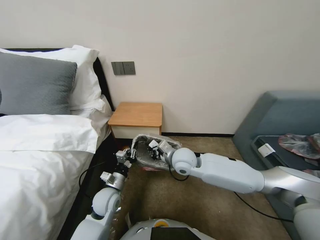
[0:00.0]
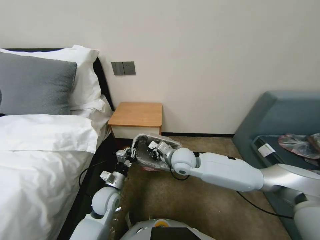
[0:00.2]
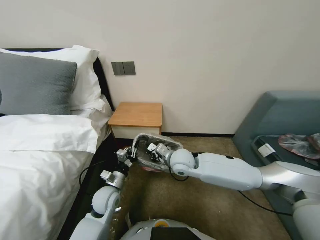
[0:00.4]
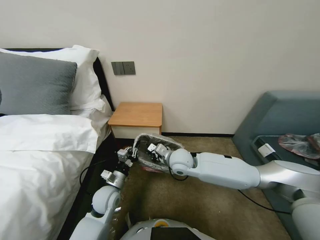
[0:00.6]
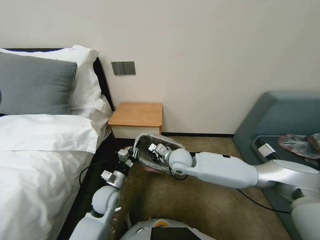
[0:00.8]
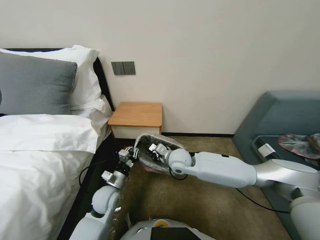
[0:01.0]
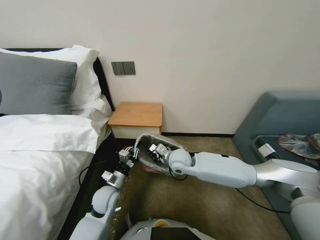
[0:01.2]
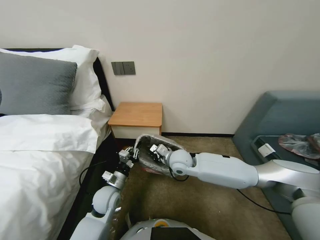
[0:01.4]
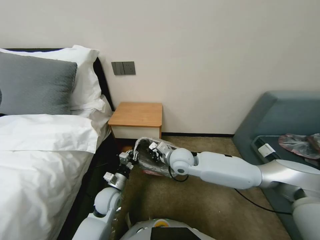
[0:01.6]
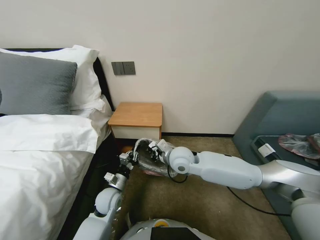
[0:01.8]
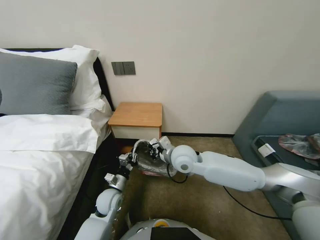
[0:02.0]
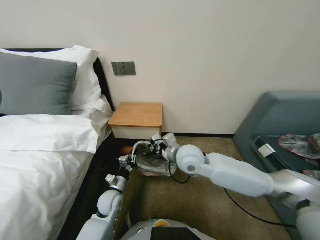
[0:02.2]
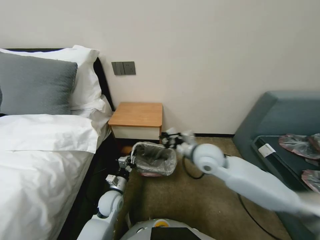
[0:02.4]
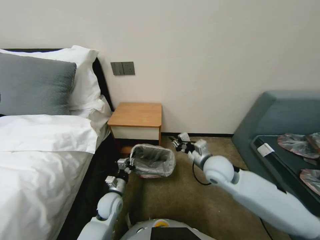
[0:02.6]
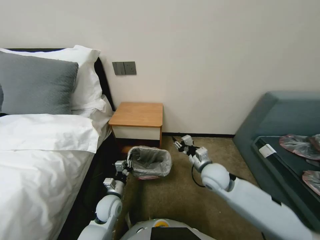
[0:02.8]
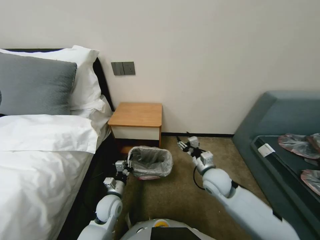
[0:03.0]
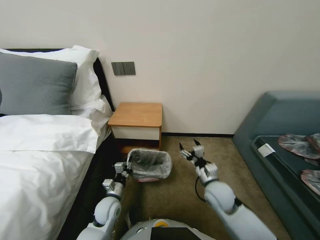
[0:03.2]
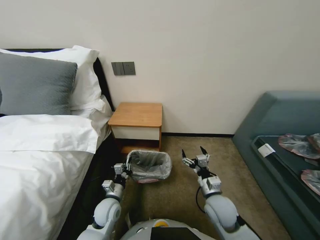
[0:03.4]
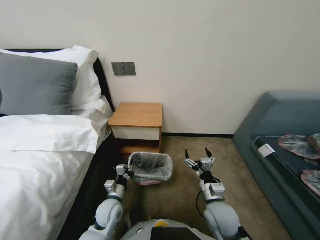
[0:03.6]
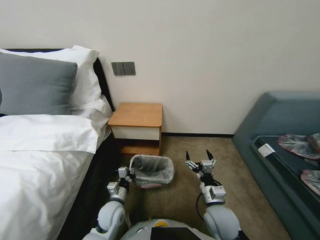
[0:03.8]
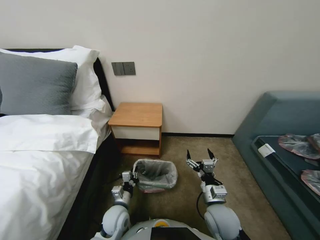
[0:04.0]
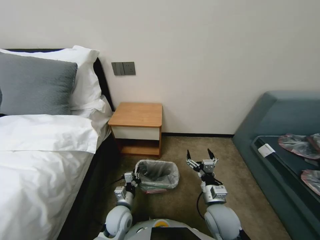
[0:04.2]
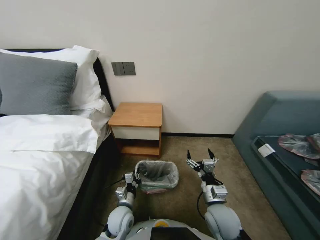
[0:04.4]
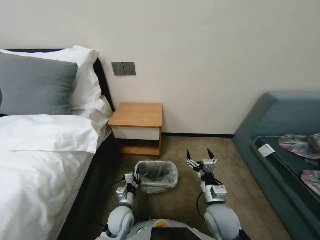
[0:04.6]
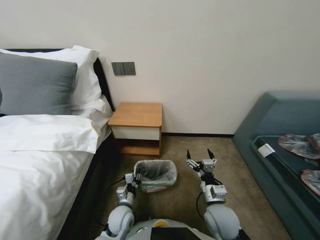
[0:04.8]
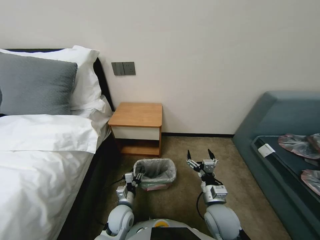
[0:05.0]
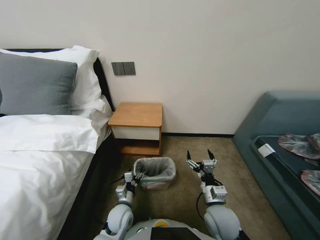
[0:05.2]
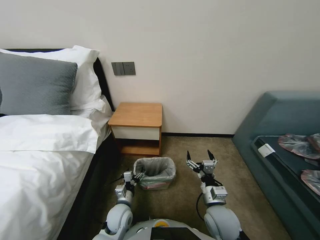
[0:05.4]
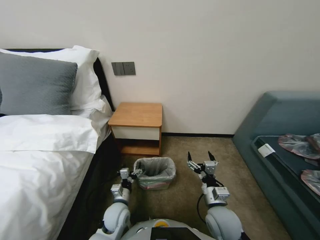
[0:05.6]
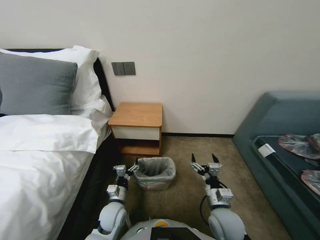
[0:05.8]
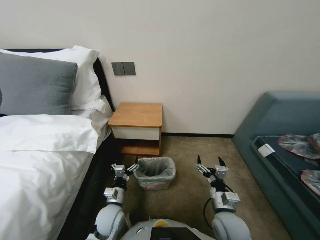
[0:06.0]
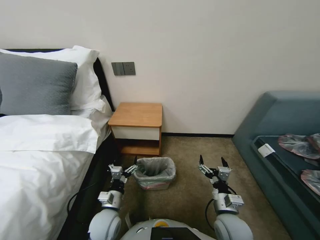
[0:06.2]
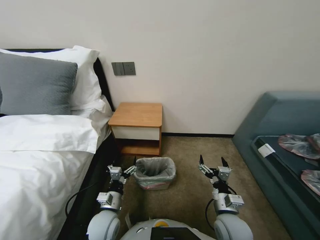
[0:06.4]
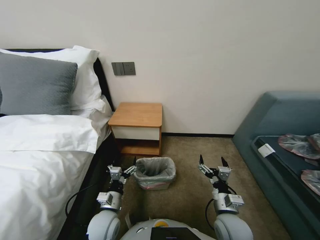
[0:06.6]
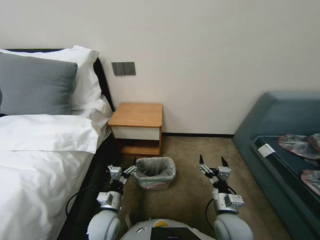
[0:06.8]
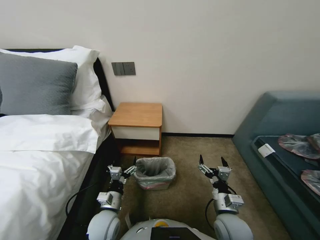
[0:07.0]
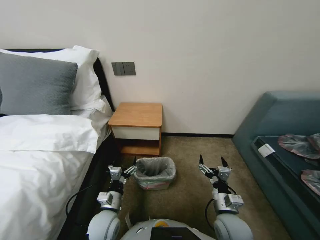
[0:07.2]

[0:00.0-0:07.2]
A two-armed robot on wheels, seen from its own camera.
Task of the whole recording: Pick up the garbage bag from the table and place it over the trash can.
0:00.0 to 0:01.4: The grippers stay close to where they were, moving slightly.
0:01.4 to 0:02.8: The right gripper heads to the right and backward, covering some 15 cm, and opens up. Meanwhile the left gripper is displaced downward by about 5 cm.
0:02.8 to 0:04.4: The right gripper moves backward and downward, roughly 15 cm, and opens its fingers, while the left gripper shifts roughly 5 cm to the right.
0:04.4 to 0:05.8: The left gripper opens its fingers.
0:05.8 to 0:07.2: The left gripper goes some 5 cm upward.

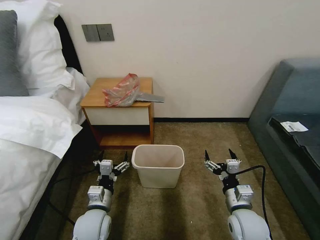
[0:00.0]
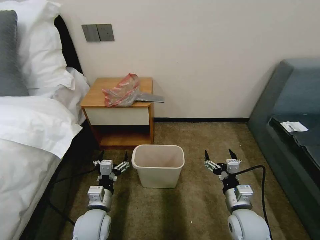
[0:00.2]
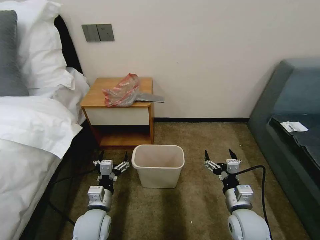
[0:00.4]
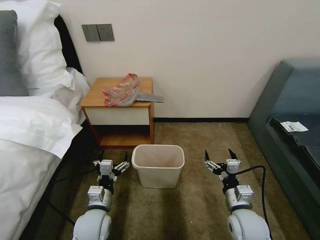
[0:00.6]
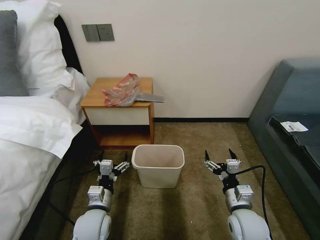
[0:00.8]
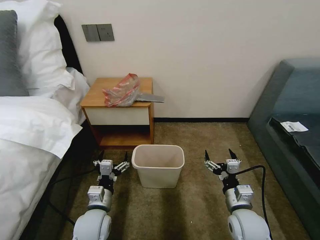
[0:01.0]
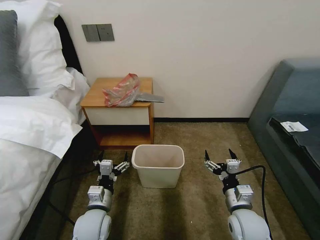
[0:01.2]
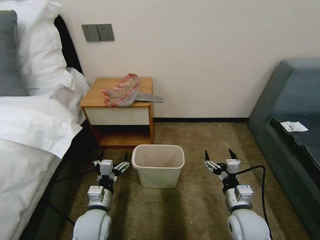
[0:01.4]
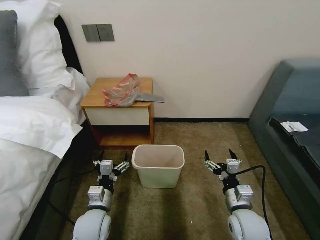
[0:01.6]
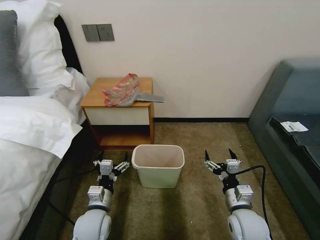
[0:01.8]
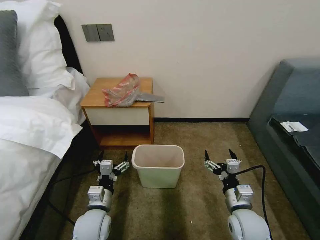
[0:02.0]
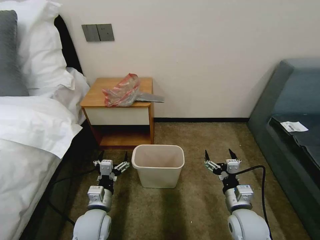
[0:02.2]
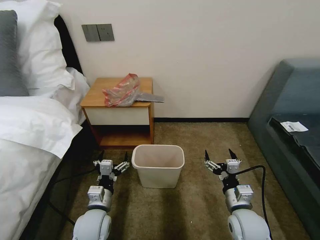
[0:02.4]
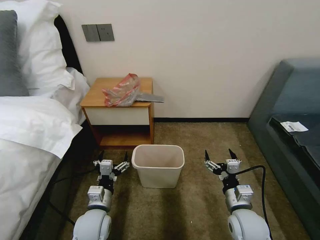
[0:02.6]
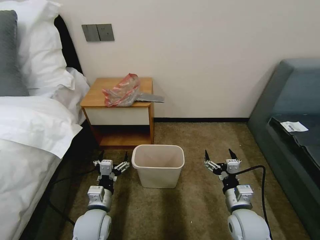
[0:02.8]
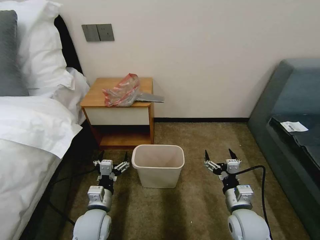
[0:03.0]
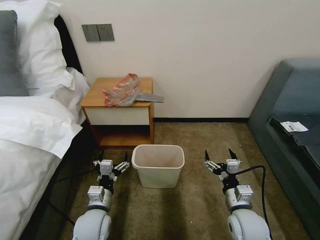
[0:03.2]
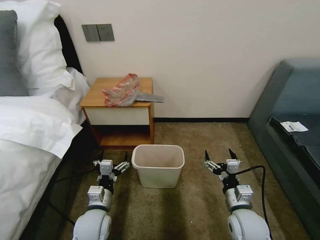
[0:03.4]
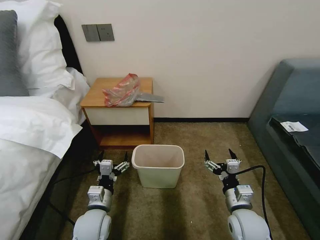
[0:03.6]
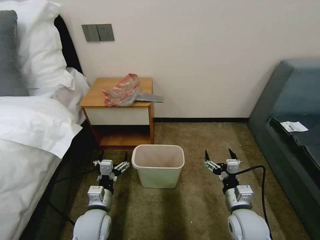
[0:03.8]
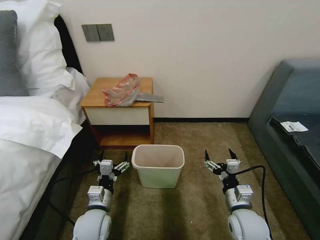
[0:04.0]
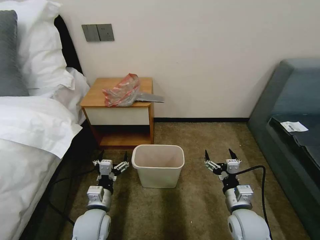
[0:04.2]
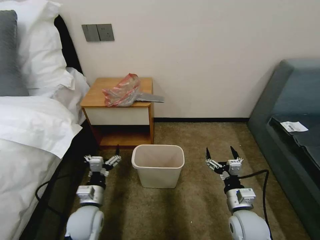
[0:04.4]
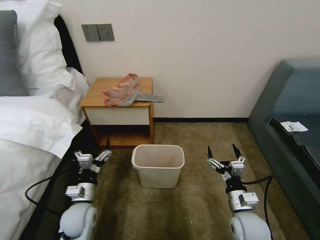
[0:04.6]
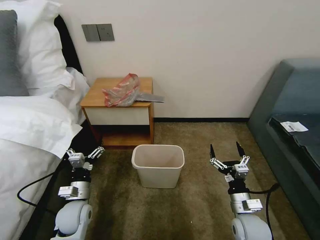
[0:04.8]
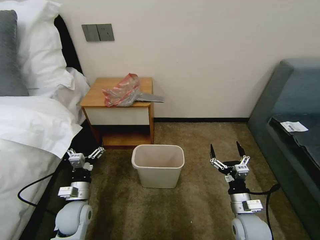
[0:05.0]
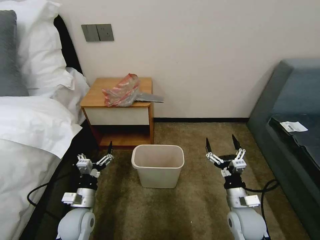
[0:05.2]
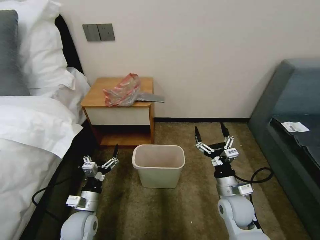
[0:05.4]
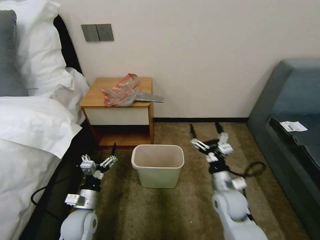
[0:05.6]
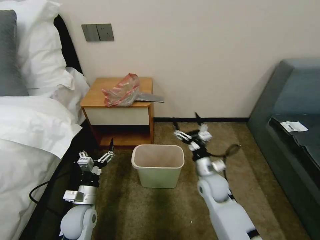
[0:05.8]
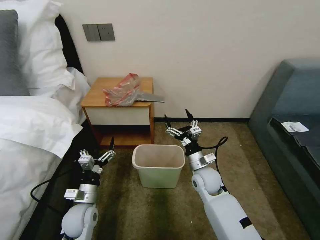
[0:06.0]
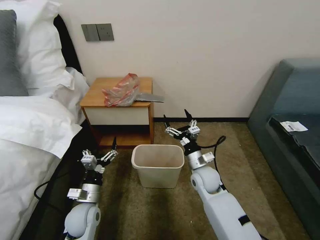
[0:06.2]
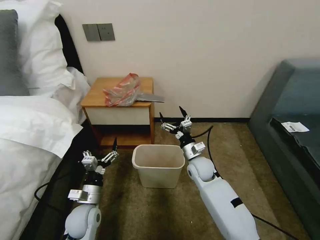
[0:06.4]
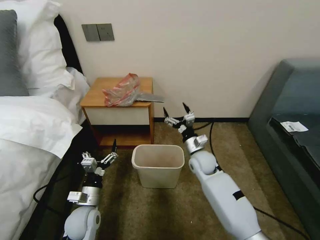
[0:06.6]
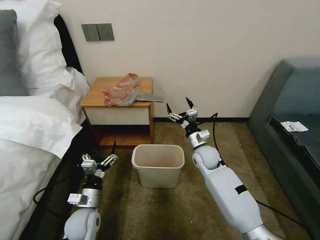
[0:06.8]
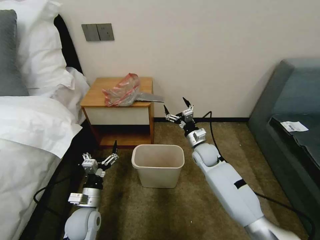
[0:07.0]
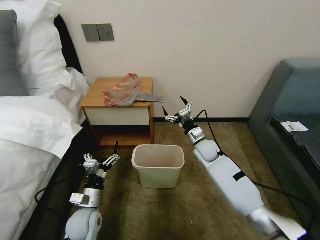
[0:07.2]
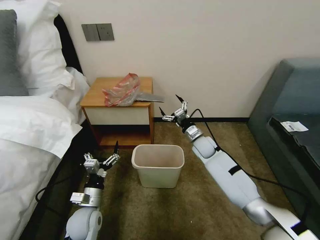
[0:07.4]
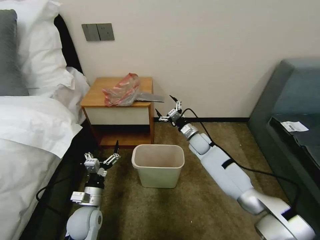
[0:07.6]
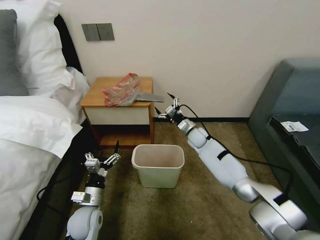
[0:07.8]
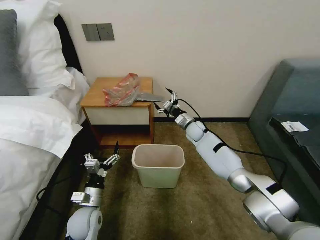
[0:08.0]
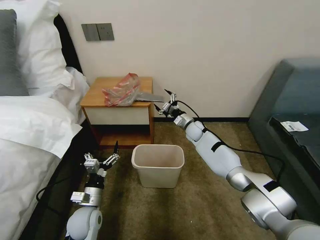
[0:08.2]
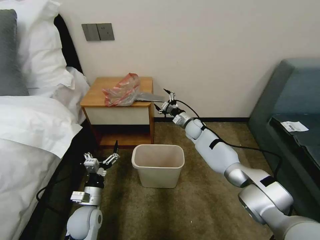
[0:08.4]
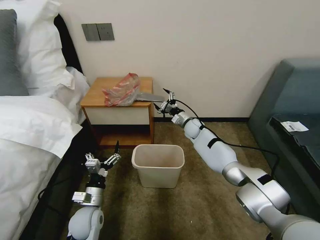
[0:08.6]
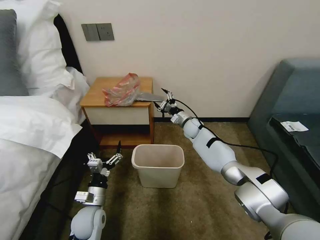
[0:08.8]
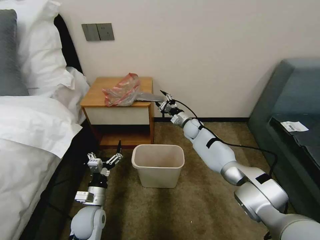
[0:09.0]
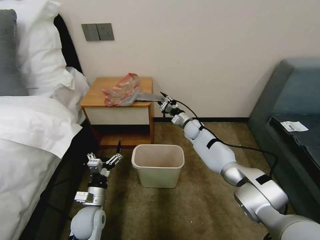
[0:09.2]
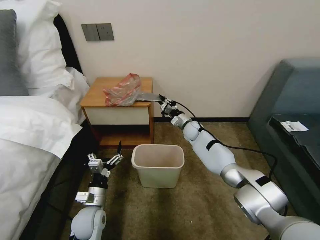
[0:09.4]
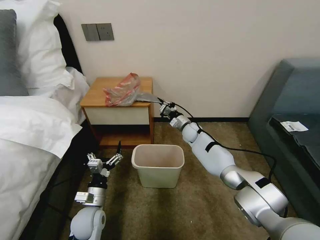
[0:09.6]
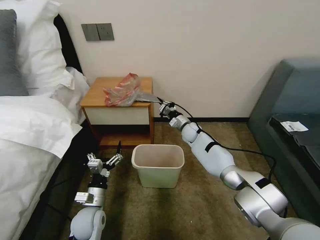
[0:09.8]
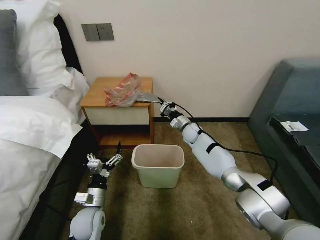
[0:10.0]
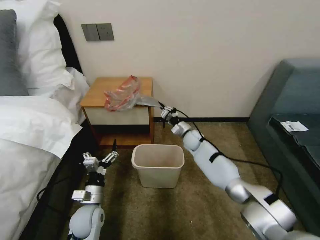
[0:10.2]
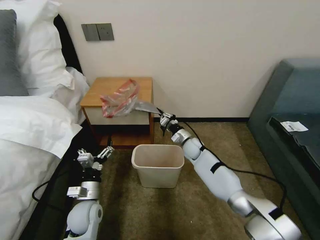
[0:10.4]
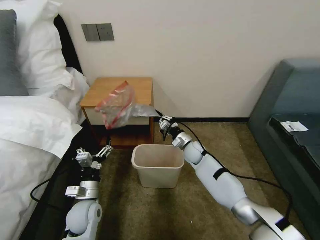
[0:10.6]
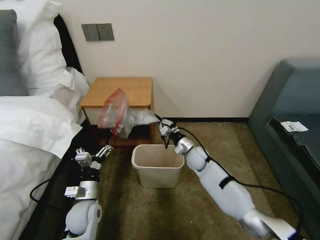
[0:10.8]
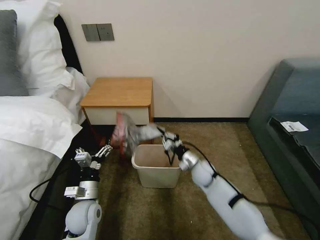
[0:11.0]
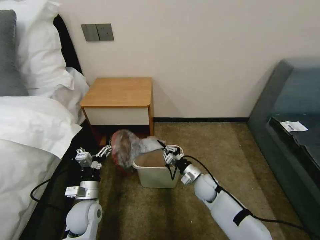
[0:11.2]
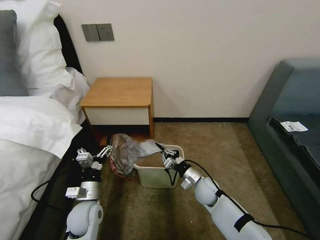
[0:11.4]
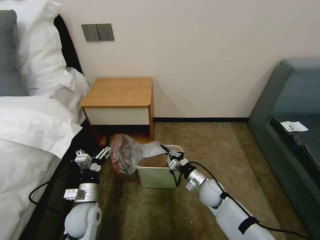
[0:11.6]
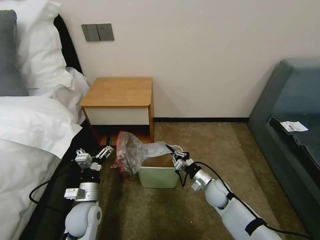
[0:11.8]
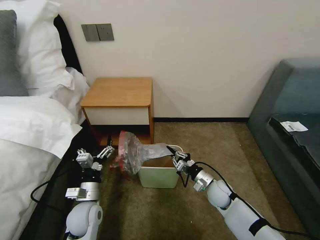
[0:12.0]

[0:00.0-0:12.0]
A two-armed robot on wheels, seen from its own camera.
Task of the whole recording: Pick up the garbage bag from the table and place it over the trash can.
0:01.6 to 0:03.0: Both grippers stay about where they are.
0:03.0 to 0:04.4: There are only small adjustments of the grippers.
0:04.4 to 0:06.0: The right gripper is displaced forward and to the left by approximately 15 cm.
0:06.0 to 0:07.6: The right gripper travels forward by roughly 15 cm.
0:07.6 to 0:09.0: The right gripper moves forward, roughly 5 cm.
0:09.0 to 0:10.4: The right gripper heads backward, covering approximately 10 cm, and closes.
0:10.4 to 0:12.0: The right gripper goes approximately 20 cm backward and to the right.

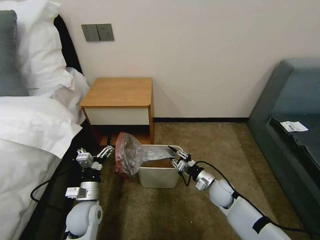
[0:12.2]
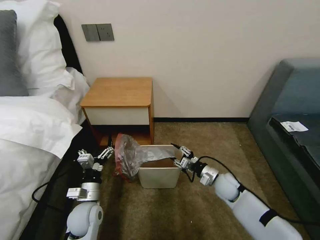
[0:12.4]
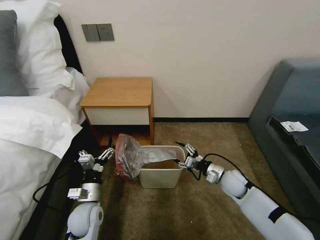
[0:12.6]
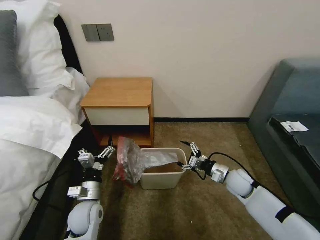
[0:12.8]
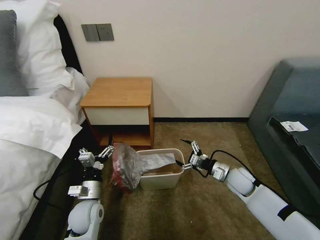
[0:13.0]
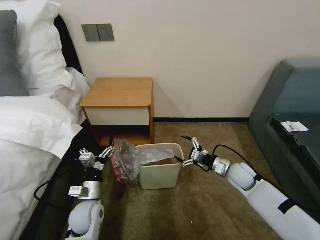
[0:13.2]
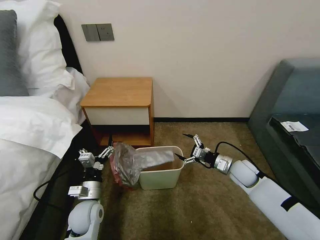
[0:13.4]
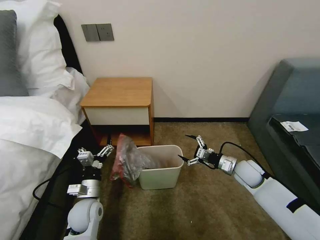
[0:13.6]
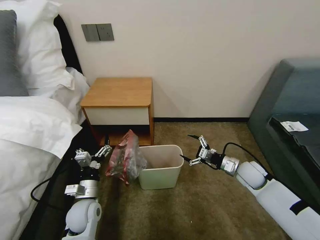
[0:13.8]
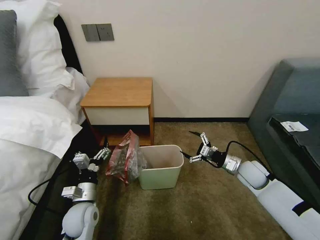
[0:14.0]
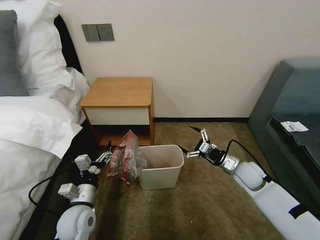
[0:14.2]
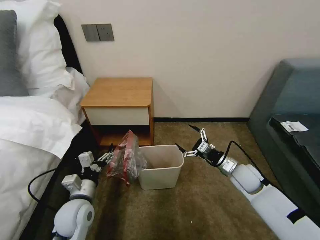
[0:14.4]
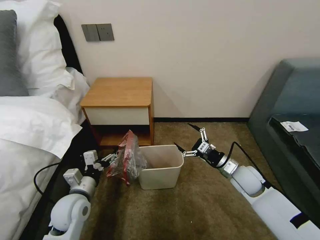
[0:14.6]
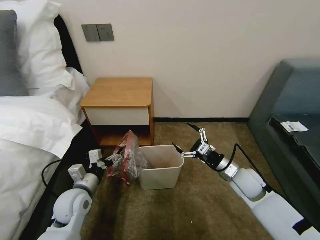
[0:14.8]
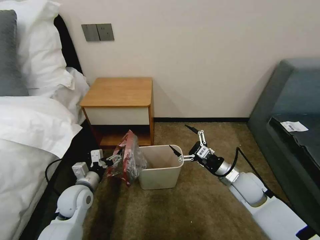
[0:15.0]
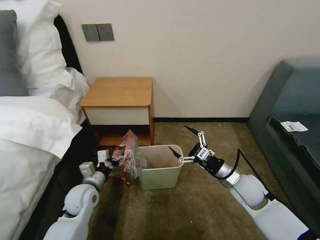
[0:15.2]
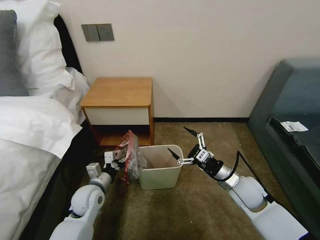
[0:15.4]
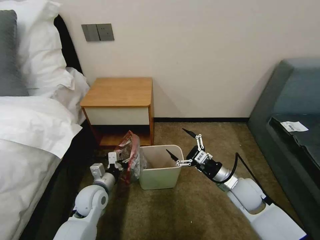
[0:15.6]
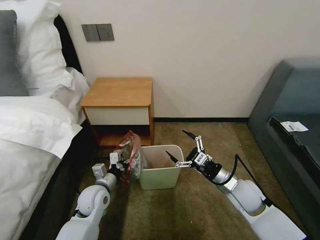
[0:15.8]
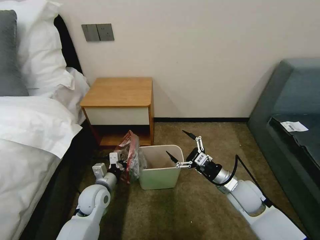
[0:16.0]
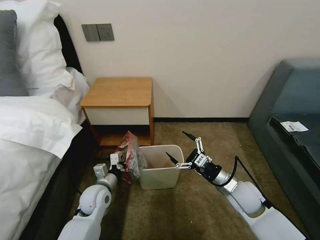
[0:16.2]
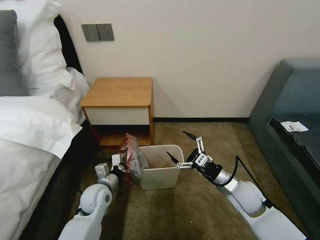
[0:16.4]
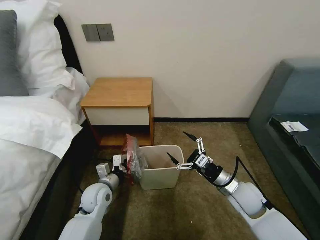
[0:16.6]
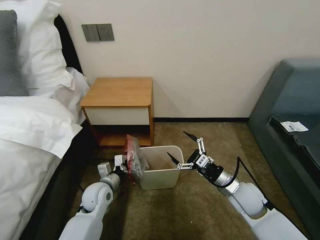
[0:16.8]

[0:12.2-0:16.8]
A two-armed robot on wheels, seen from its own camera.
Task of the whole recording: Pick up the garbage bag from the table and place it over the trash can.
0:12.2 to 0:13.8: The right gripper travels to the right and upward by approximately 15 cm, and opens its fingers.
0:13.8 to 0:15.2: The right gripper travels backward and to the left by some 10 cm.
0:15.2 to 0:16.8: The grippers make only small movements.
